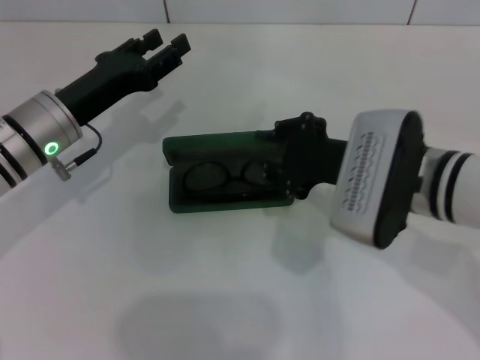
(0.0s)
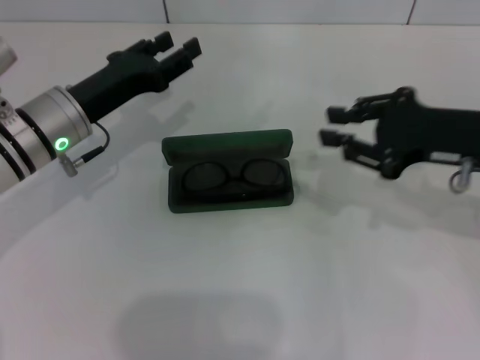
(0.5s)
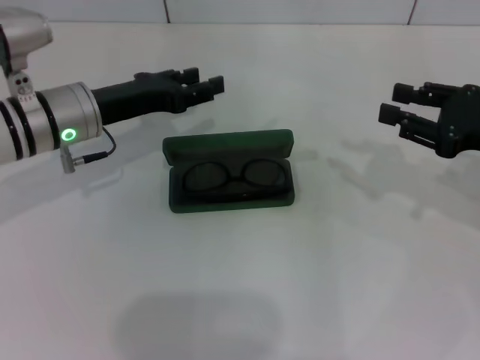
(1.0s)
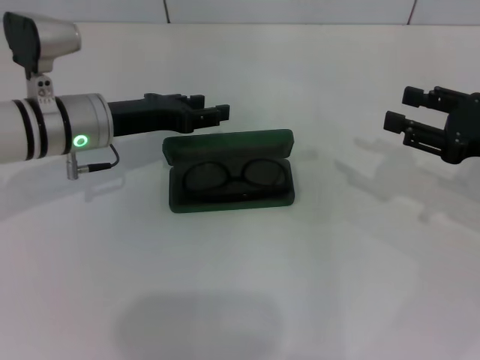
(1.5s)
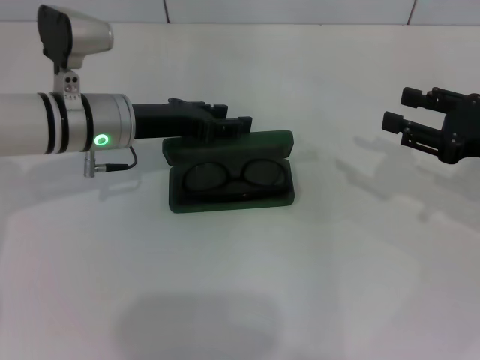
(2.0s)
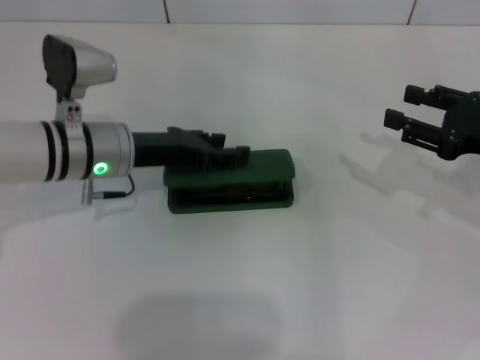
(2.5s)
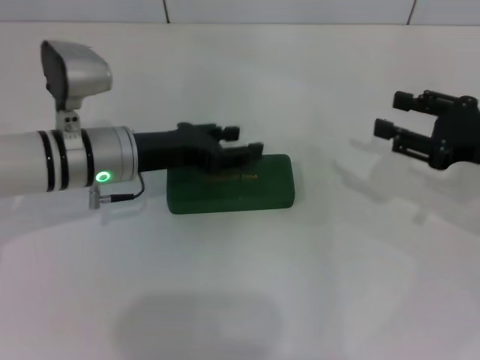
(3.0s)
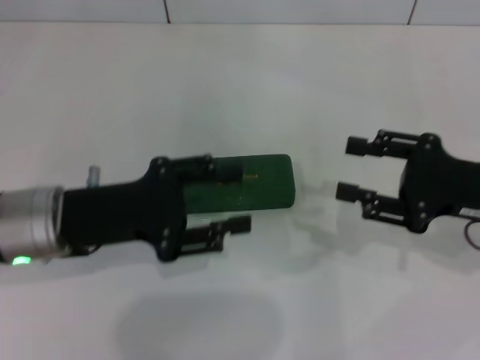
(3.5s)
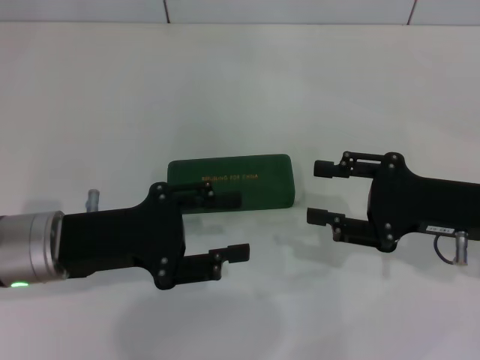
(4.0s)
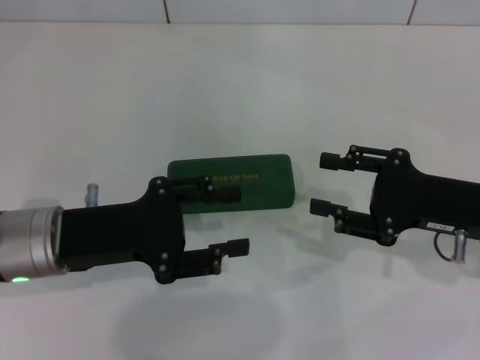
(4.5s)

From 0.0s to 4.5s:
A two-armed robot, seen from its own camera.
Step, from 0.0s to 2.5s: Close the glasses case with your left hand.
From 0.0s to 2.0s: The right gripper is displaced to the right by approximately 15 cm, and opens. The left gripper changes place by approximately 5 cm.
From 2.0s to 4.5s: The left gripper goes approximately 15 cm backward; the right gripper goes roughly 5 cm to the left.

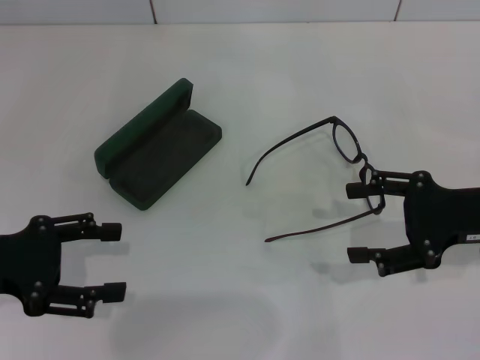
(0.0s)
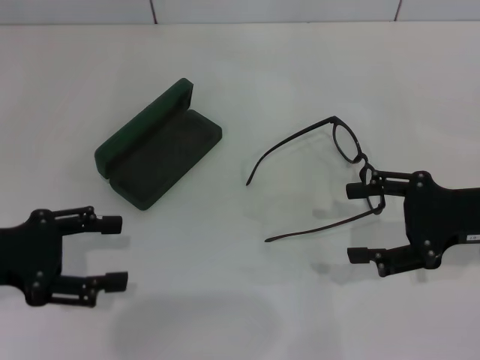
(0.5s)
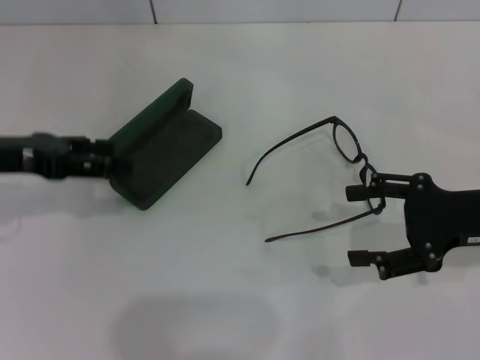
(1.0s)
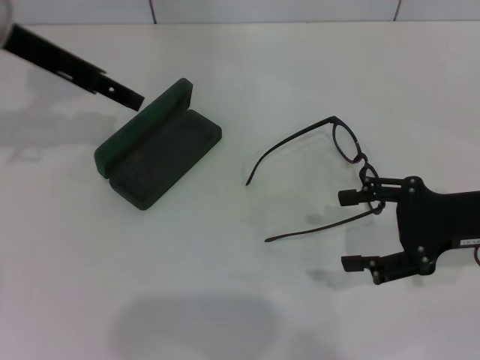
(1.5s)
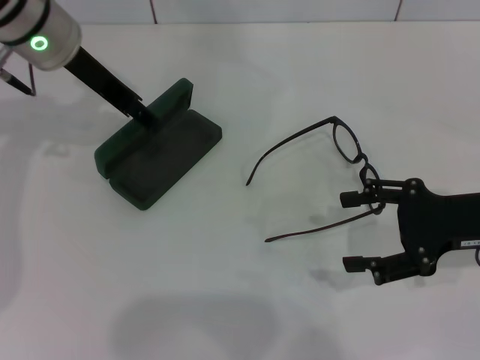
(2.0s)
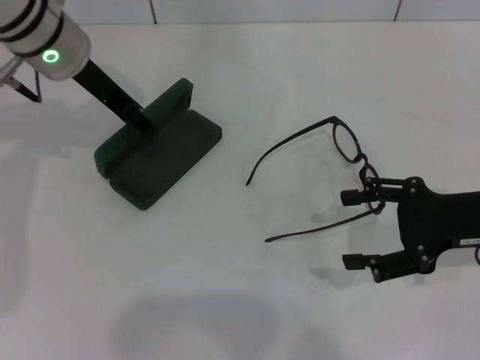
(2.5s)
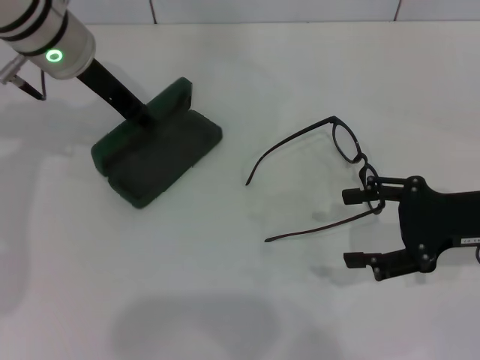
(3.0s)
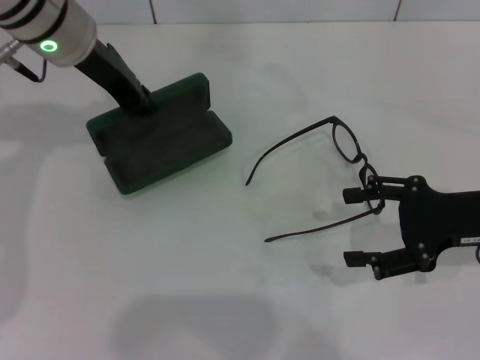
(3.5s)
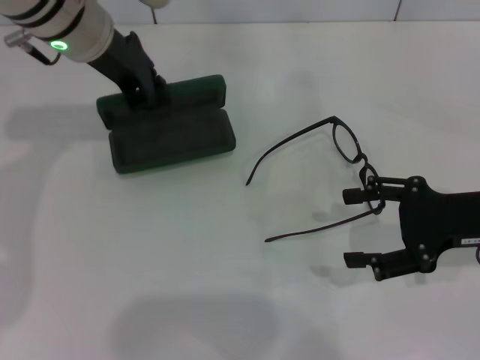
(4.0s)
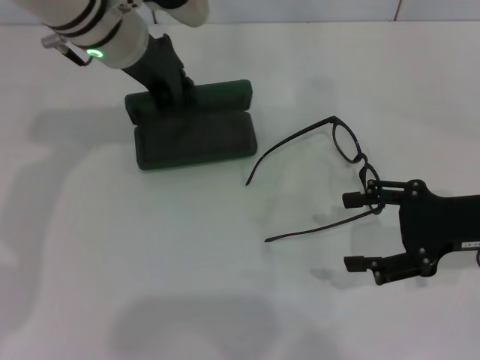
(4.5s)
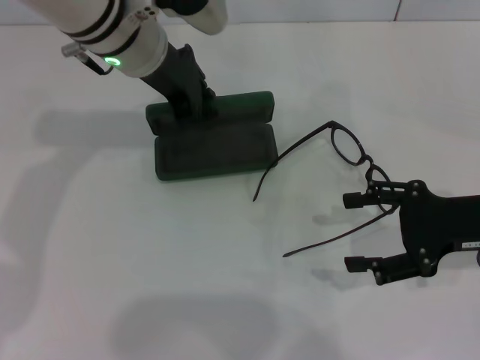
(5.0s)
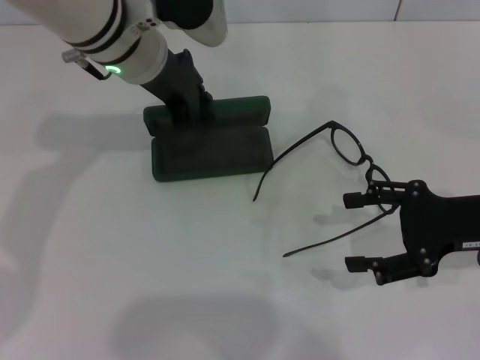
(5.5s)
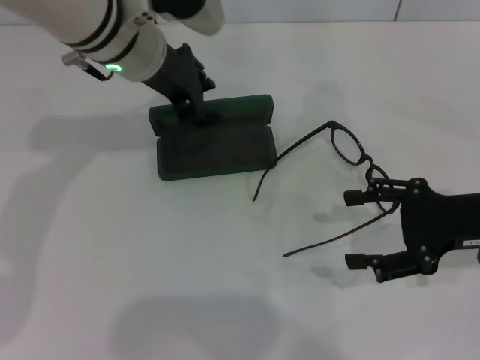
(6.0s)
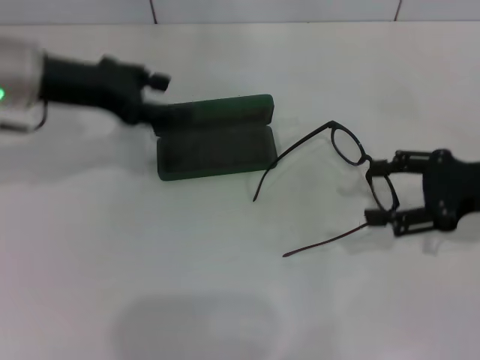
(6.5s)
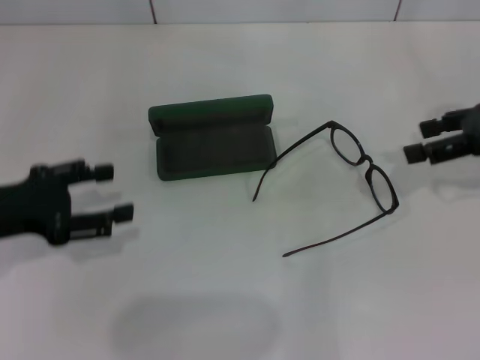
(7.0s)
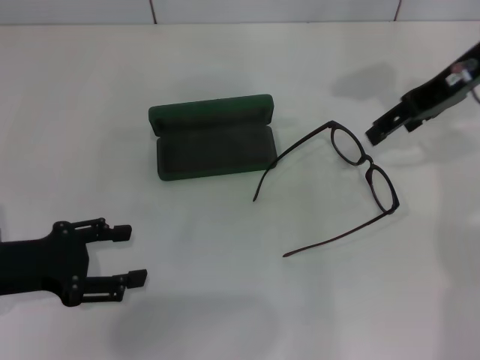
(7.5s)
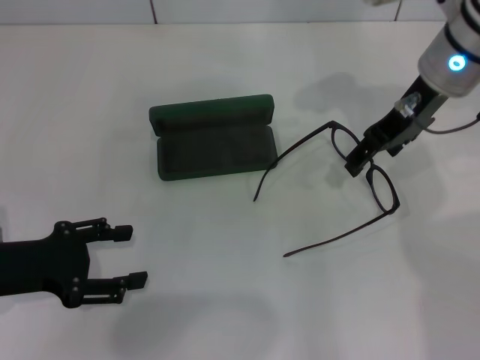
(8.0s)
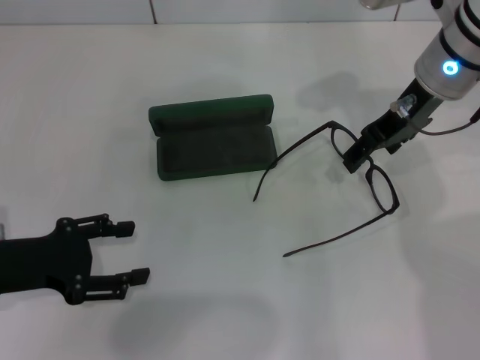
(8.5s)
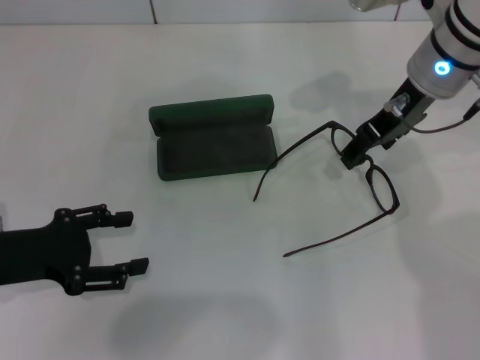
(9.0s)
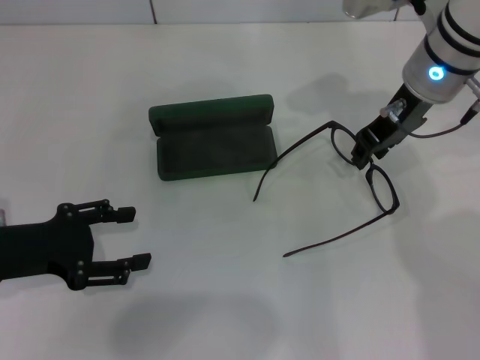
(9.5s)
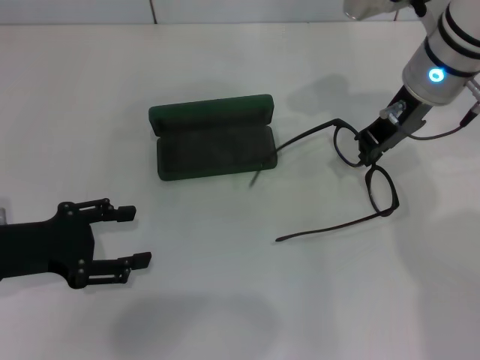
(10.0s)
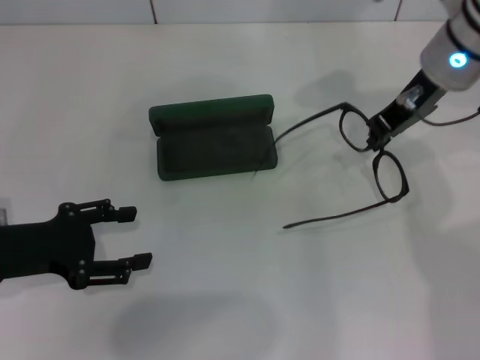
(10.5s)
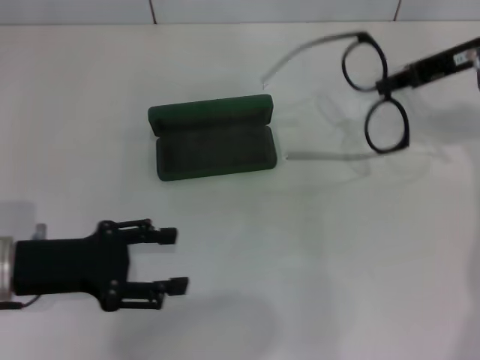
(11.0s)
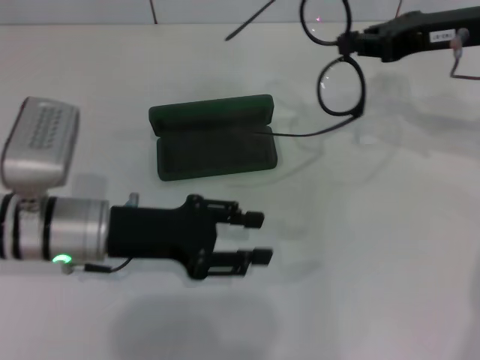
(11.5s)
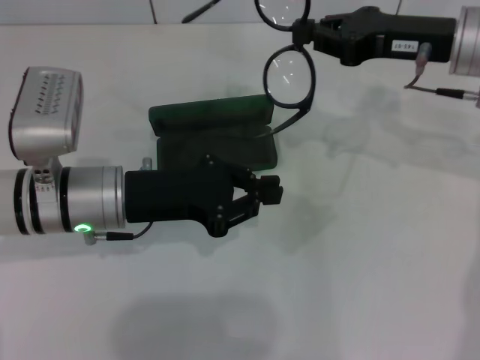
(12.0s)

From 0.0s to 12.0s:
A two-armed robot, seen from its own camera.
Step, from 0.0s to 3.0s: Grab the glasses case with your left hand.
Step, from 3.5s to 5.5s: Place the glasses case in the center of the table with your left hand.
Step, from 6.0s to 9.5s: Grab the eyeglass frame with your right hand.
From 0.0s to 2.0s: The left gripper travels forward, to the right and upward by approximately 25 cm.
From 2.0s to 4.0s: The left gripper closes up.
From 4.0s to 6.0s: The grippers make only small movements.
From 6.0s to 8.0s: The left gripper travels to the left, backward and downward by roughly 30 cm, and opens. Meanwhile the right gripper goes some 20 cm forward, to the left and upward.
From 8.0s to 10.0s: The right gripper closes.
From 10.0s to 12.0s: The left gripper heads to the right and forward, covering approximately 15 cm, and closes, while the right gripper shifts some 5 cm to the right.

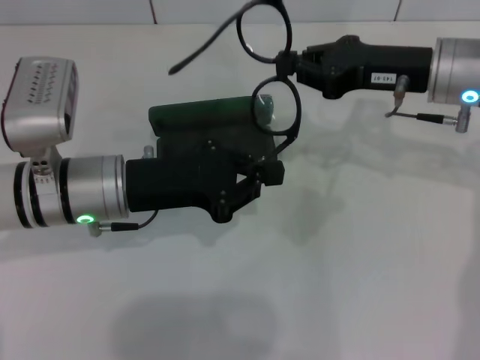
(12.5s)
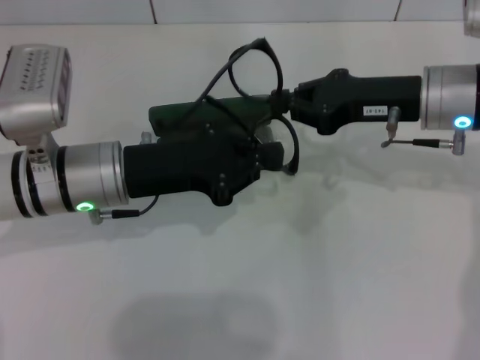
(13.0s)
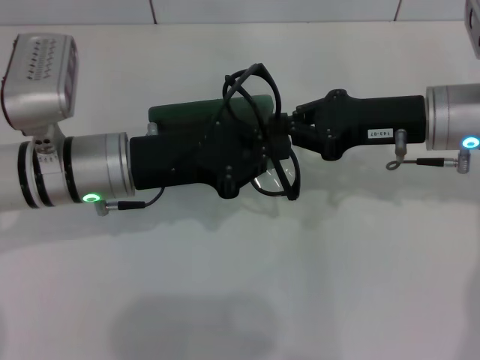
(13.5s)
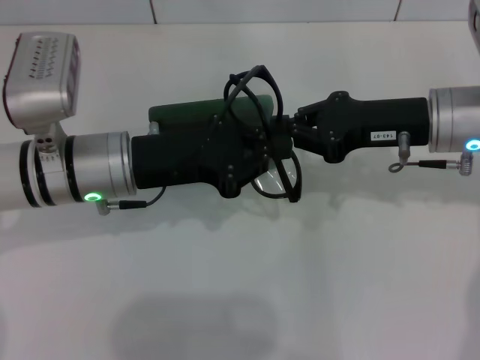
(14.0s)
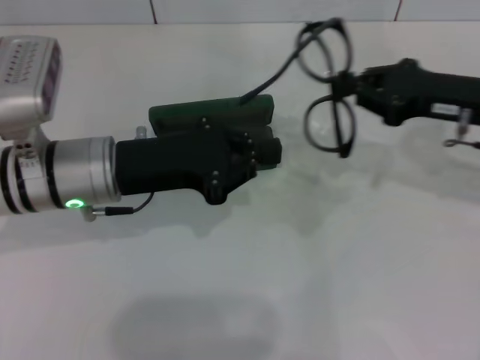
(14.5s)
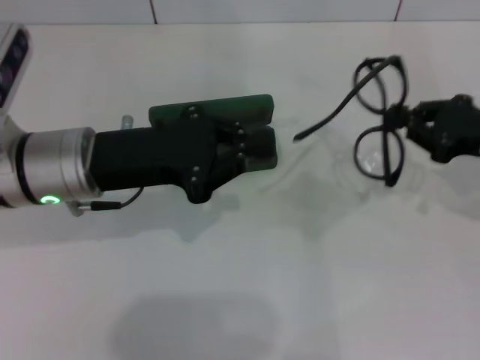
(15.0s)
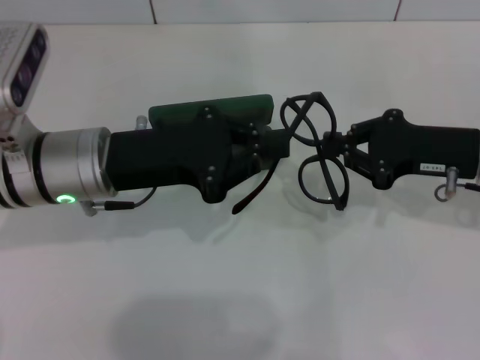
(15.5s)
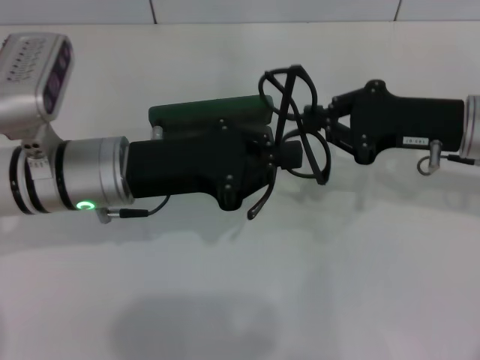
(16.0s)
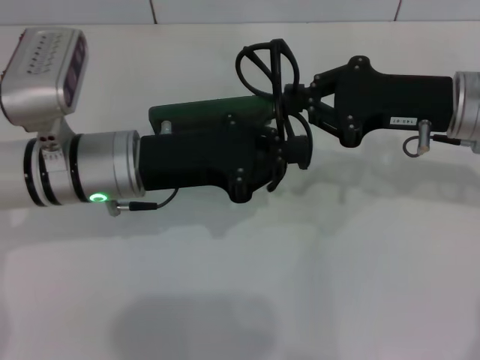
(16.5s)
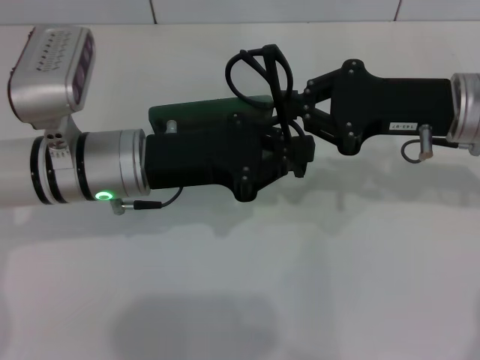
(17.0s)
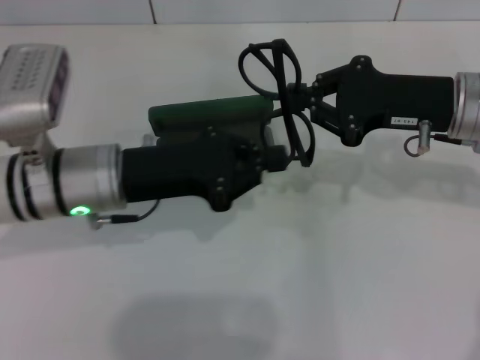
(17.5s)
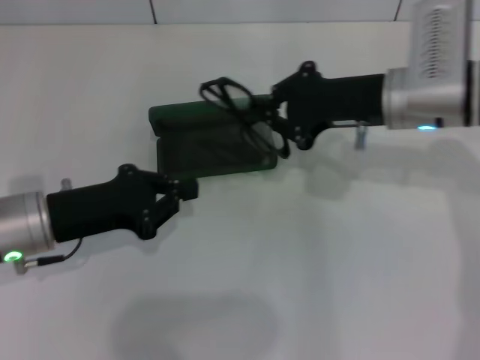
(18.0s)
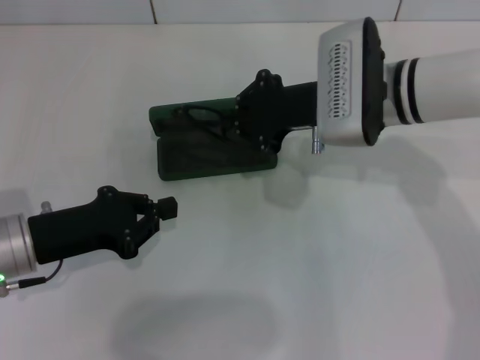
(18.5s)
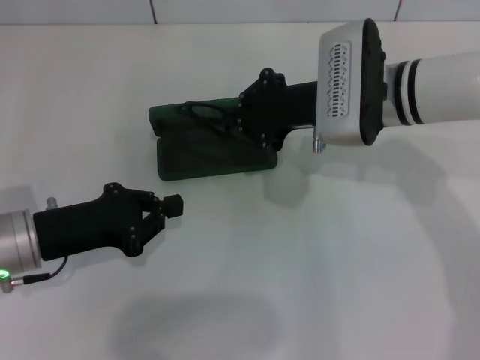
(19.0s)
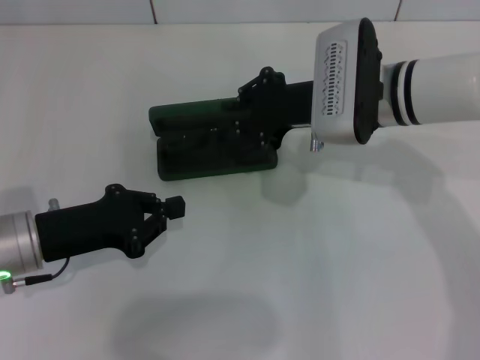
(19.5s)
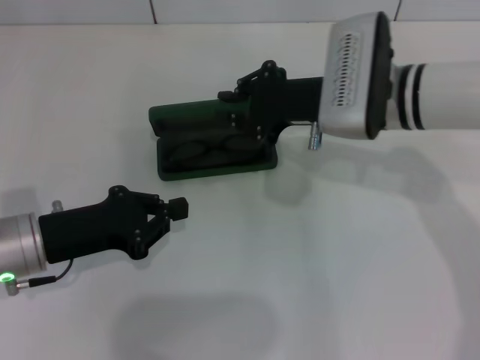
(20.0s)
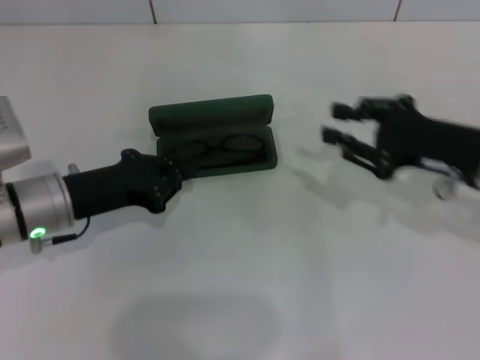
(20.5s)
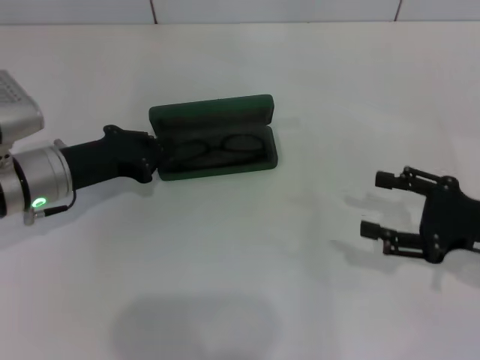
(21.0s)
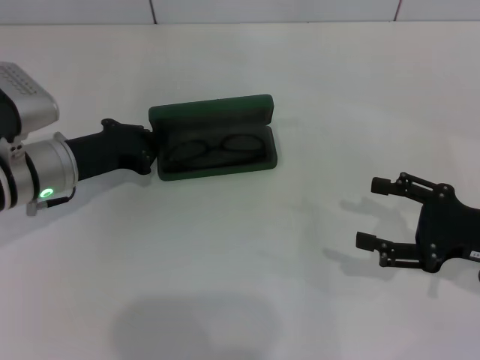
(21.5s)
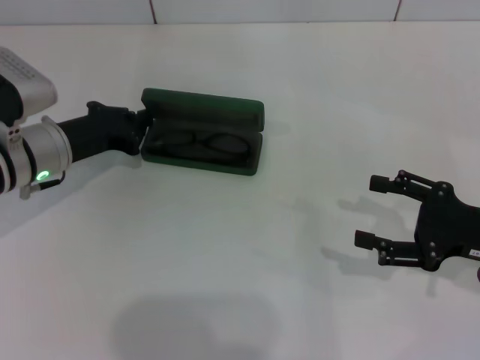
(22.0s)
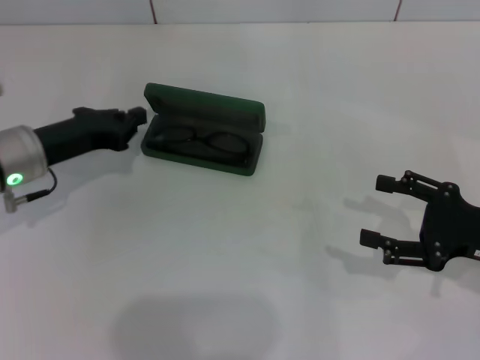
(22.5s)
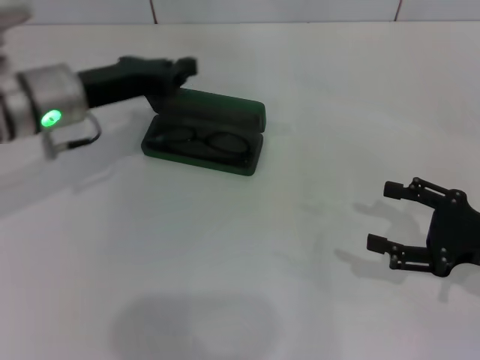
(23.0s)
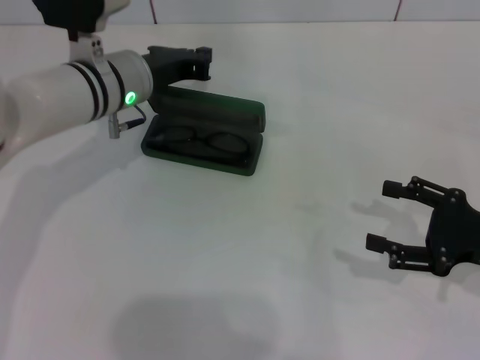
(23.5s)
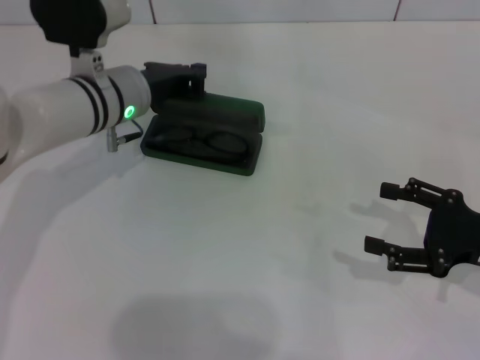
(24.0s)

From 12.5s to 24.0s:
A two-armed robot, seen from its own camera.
Step, from 12.5s to 17.0s: Fold the frame with your left hand.
Step, from 17.5s to 19.5s: Put the glasses into the case with your right hand.
From 12.5s to 14.5s: The right gripper goes about 5 cm to the right.
From 14.5s to 16.5s: The right gripper shifts by about 5 cm.
From 16.5s to 18.5s: The right gripper goes roughly 10 cm to the left. Meanwhile the left gripper heads to the left, downward and backward, covering approximately 15 cm.
From 18.5s to 20.0s: The grippers move only a little.
From 20.0s to 22.0s: The right gripper travels to the right and backward by approximately 20 cm, and opens up. Meanwhile the left gripper moves forward, roughly 10 cm.
From 22.0s to 24.0s: The left gripper goes some 10 cm to the right.
